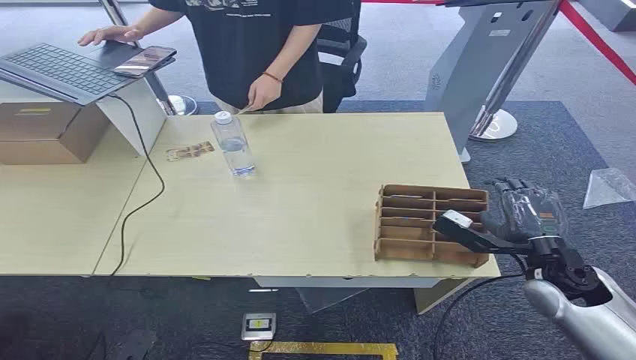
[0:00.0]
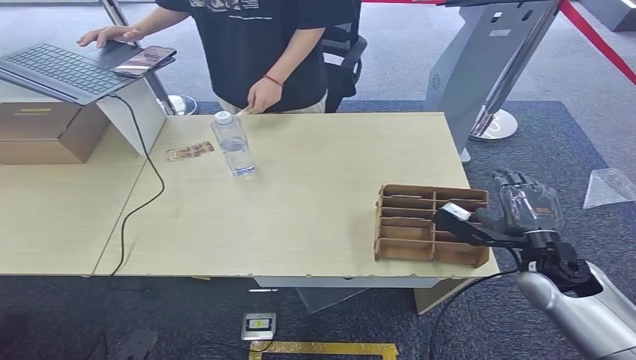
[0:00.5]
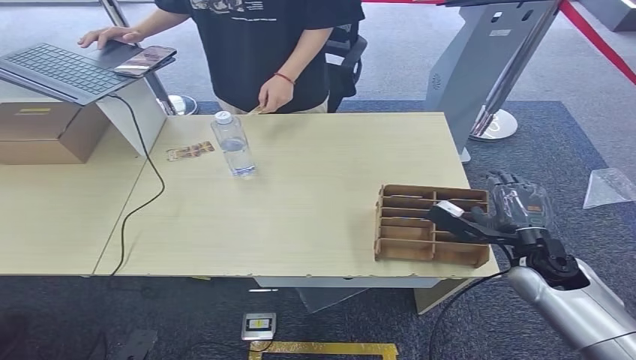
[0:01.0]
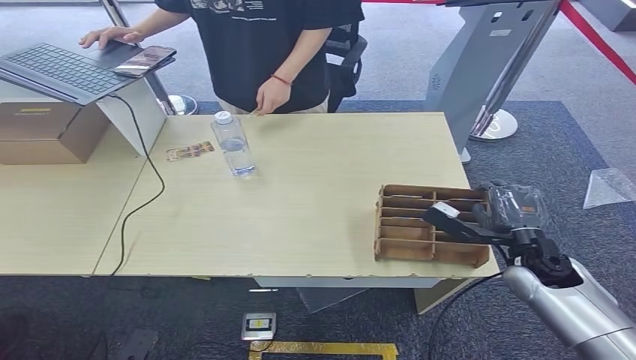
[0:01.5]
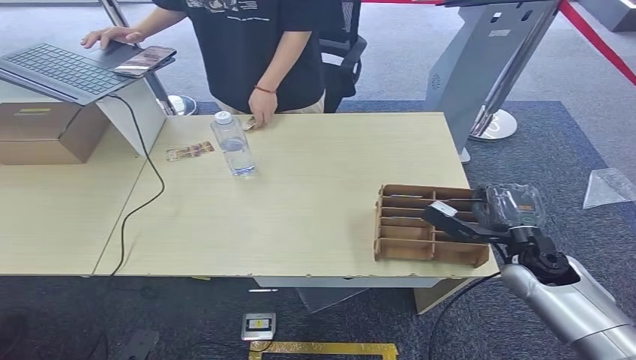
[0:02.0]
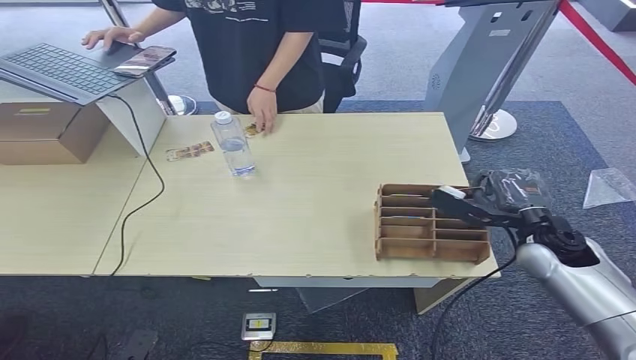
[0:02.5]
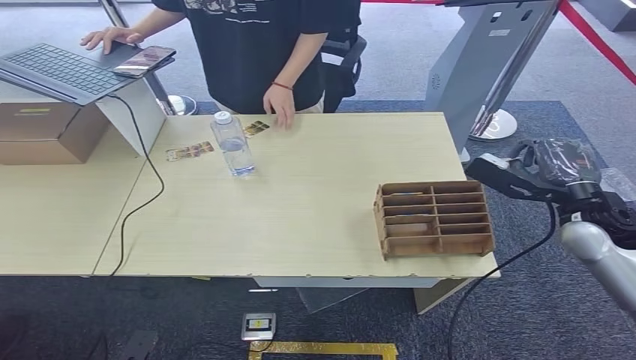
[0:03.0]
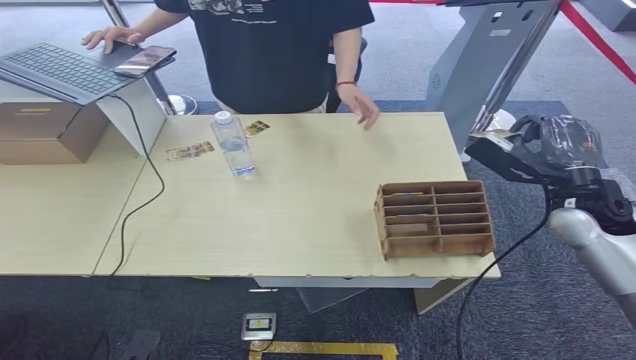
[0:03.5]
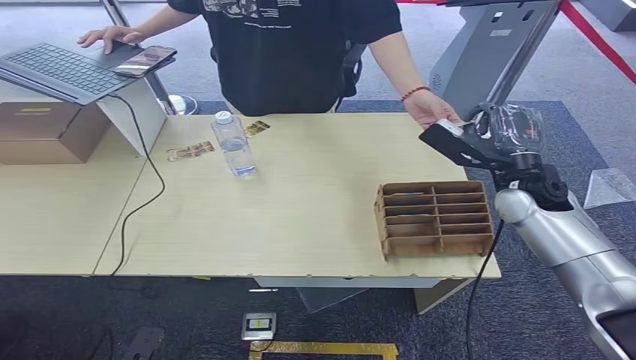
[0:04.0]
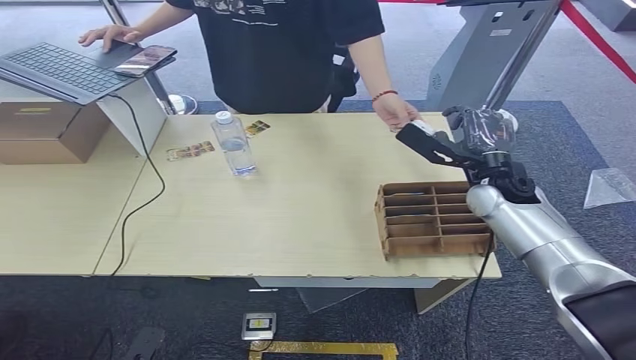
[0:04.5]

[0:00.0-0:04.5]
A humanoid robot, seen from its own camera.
Step, 0:00.0 to 0:03.0: Pick up the room card from the card holder.
Step, 0:03.5 to 0:04.5: Hand the room card to the target.
0:02.0 to 0:04.5: The right hand shifts about 15 cm forward and upward.
